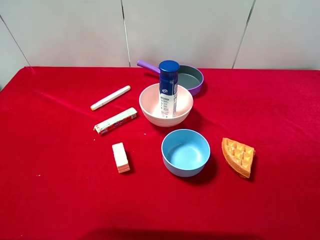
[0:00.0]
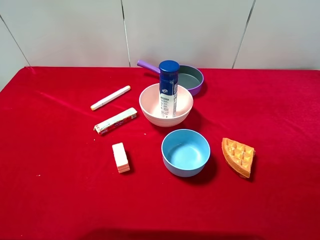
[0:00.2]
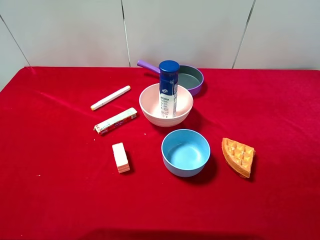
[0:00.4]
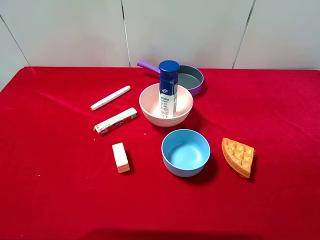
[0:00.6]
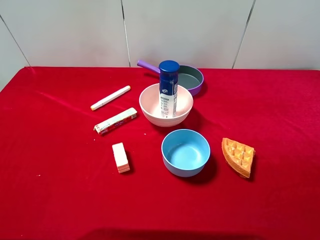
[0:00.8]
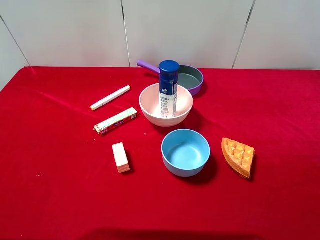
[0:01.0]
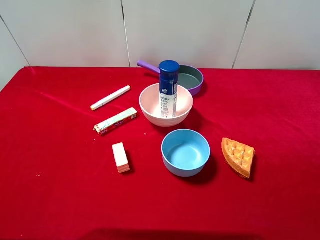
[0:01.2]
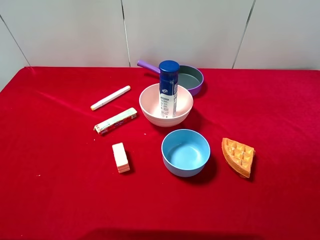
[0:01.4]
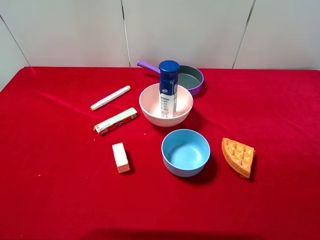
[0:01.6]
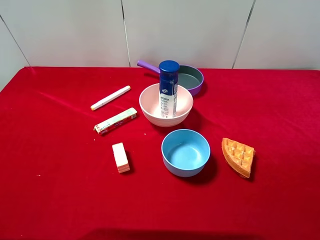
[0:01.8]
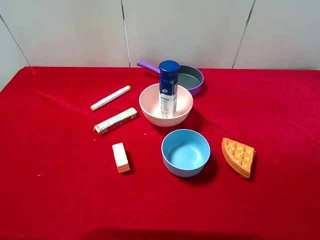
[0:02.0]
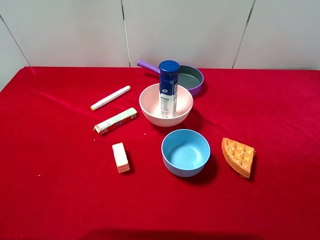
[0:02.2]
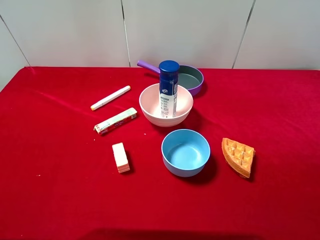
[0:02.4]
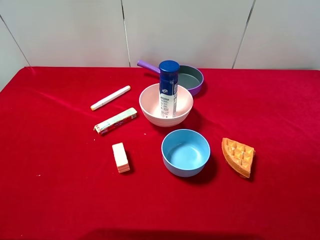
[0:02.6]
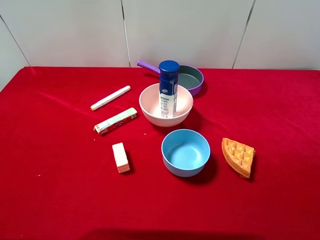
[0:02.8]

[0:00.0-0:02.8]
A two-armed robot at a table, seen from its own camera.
Task of the whole recording: pick up an item with a gripper and place it in a random container on the desktop.
0:01.4 to 0:02.8: Both grippers stay put.
